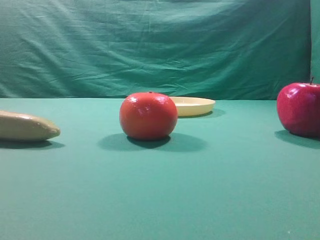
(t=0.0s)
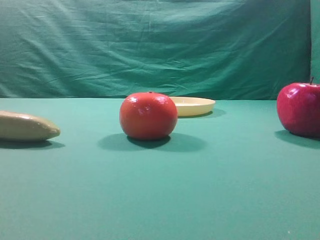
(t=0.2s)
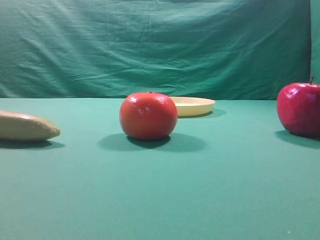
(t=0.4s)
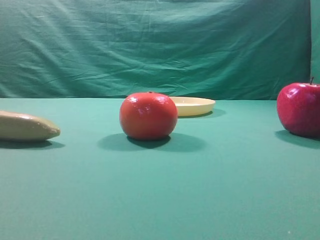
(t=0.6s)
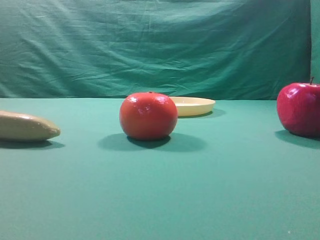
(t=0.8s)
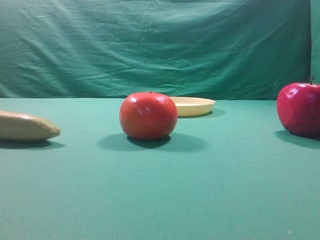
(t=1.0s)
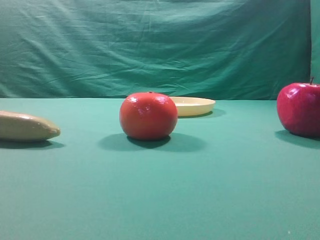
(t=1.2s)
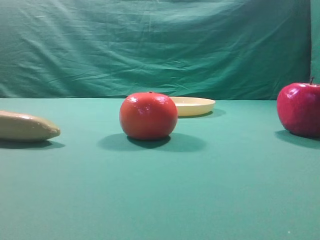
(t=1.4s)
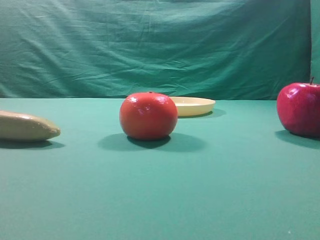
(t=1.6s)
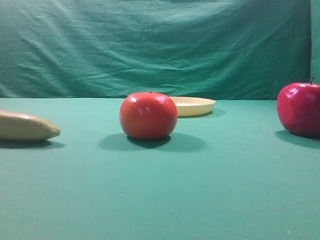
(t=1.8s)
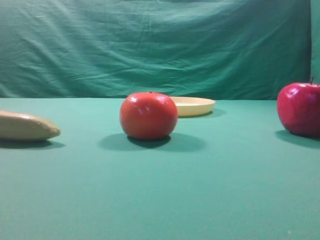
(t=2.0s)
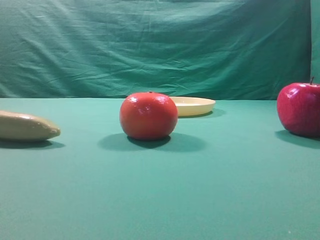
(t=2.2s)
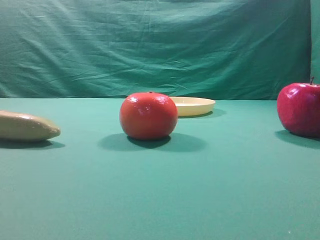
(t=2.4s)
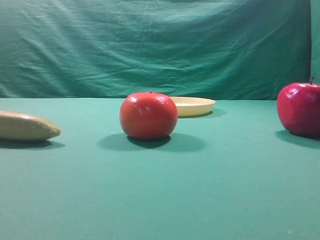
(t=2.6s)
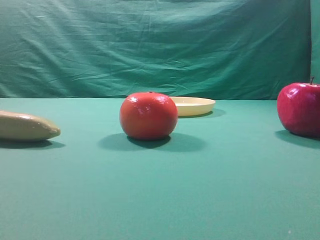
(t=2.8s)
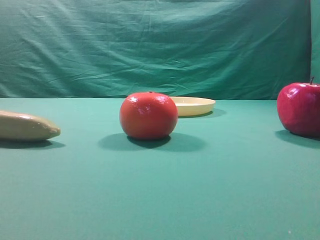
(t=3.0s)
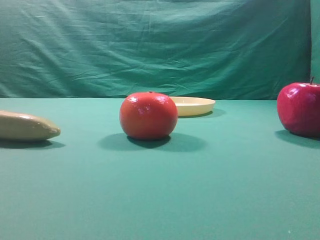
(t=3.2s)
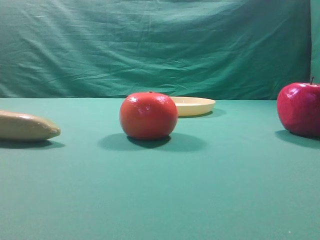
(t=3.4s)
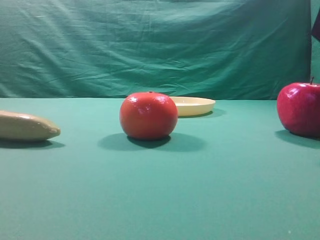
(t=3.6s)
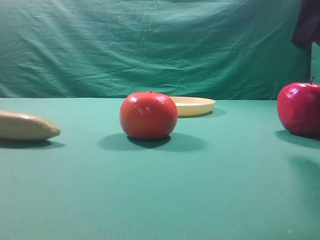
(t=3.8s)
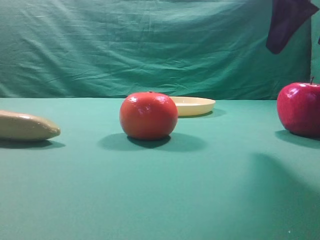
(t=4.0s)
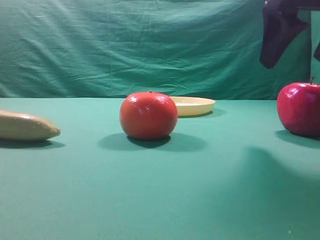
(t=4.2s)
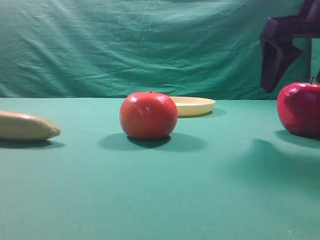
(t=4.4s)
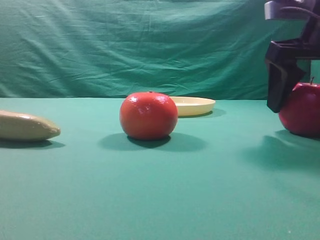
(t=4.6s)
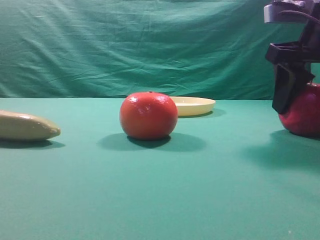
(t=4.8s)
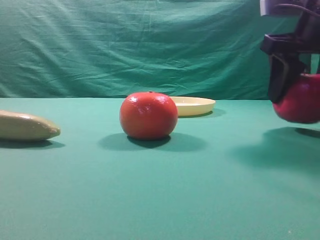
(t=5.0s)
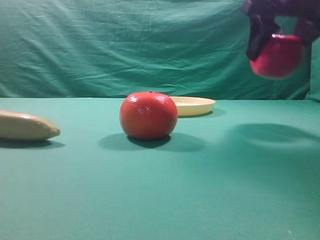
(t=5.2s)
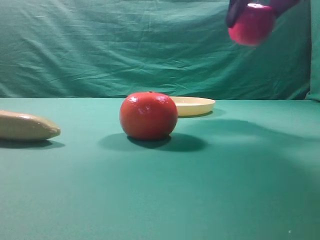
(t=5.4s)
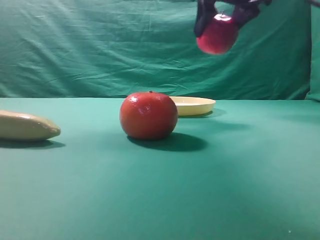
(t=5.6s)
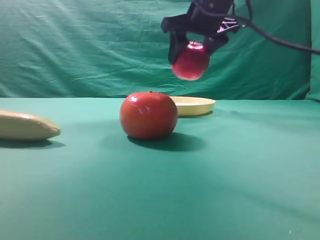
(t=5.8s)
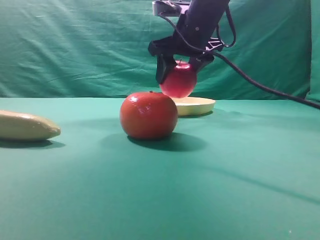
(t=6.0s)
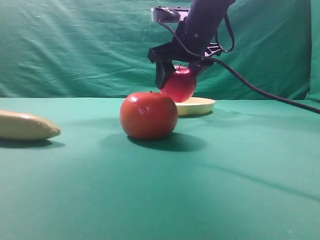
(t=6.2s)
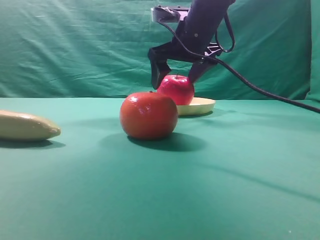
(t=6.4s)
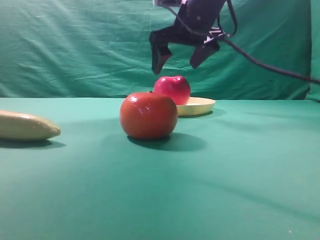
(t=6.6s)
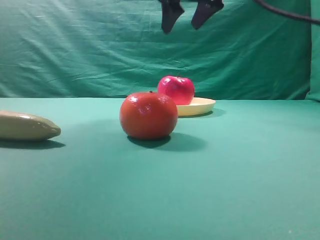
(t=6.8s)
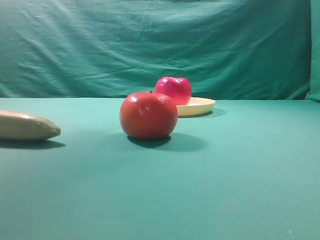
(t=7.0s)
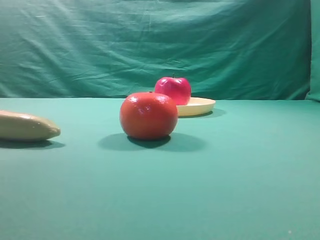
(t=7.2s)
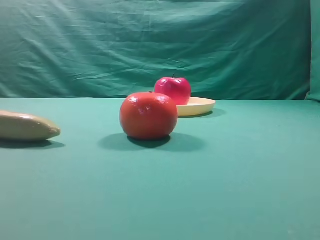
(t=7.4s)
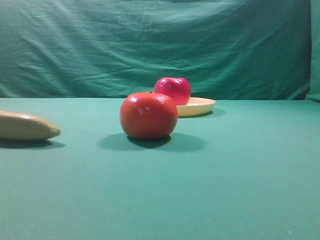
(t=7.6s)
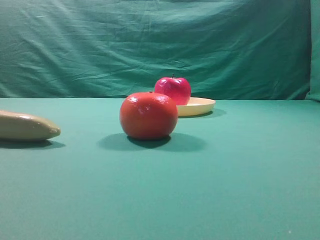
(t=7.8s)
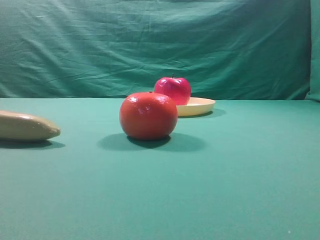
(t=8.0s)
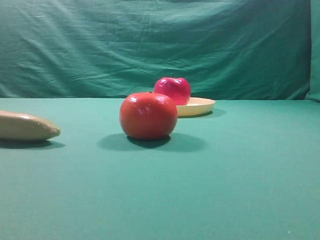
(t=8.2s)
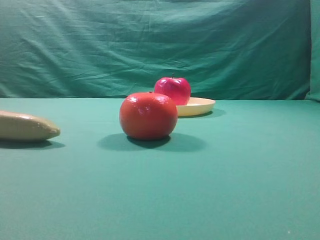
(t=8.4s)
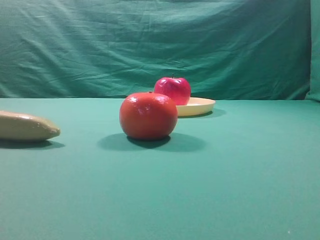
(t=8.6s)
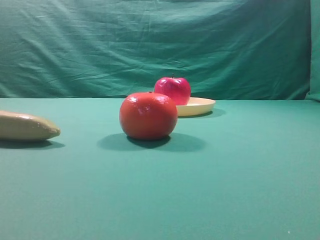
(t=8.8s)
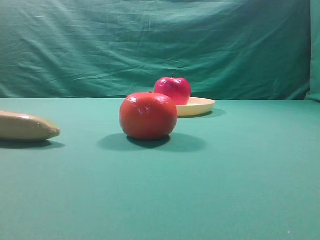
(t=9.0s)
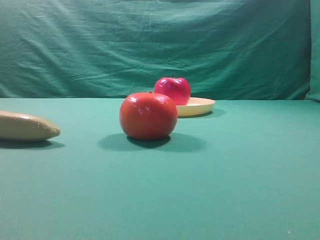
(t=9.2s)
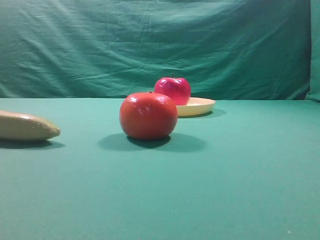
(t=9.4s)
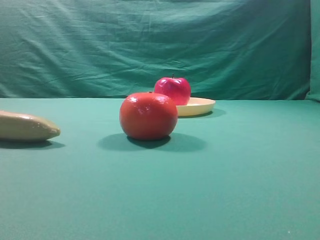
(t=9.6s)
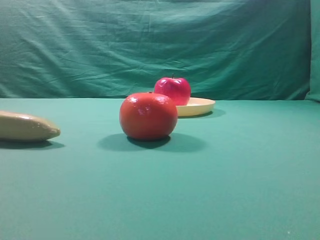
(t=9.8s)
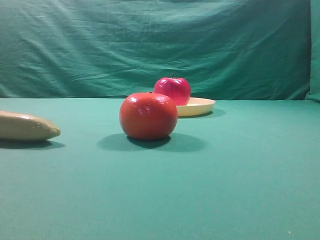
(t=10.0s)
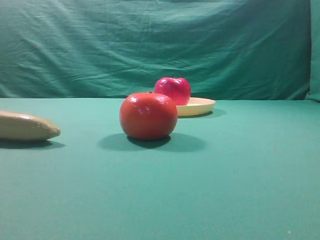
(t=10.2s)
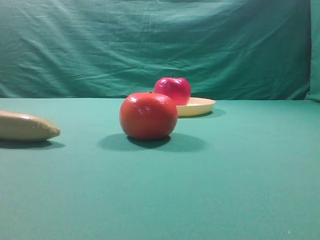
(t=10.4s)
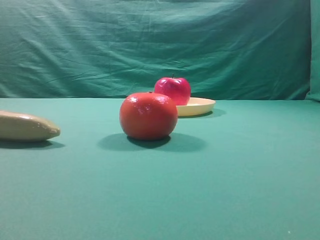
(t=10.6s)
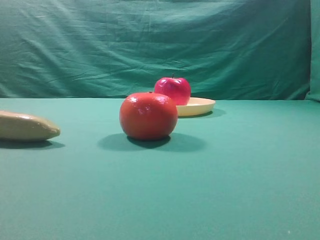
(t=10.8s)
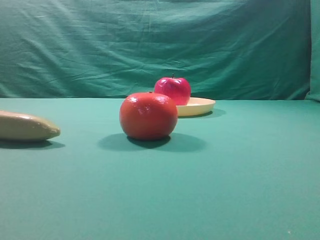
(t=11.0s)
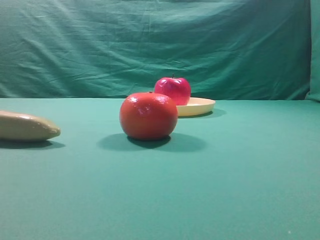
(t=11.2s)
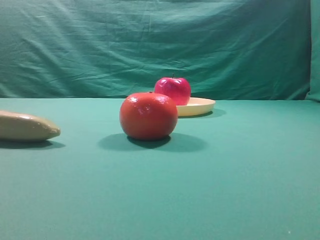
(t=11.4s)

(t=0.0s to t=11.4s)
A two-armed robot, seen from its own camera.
Task of the whole recording: grasp the apple and place it into the yellow plate.
Step, t=0.0s - t=5.0s: Grasp the fruit that can keep the doctor away.
Step, t=5.2s - t=6.6s: Place the picked object into the yellow plate.

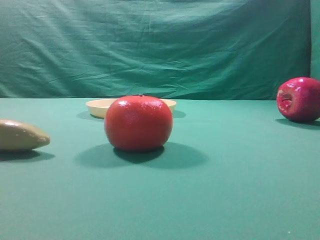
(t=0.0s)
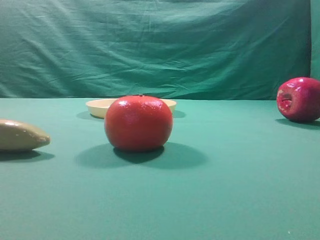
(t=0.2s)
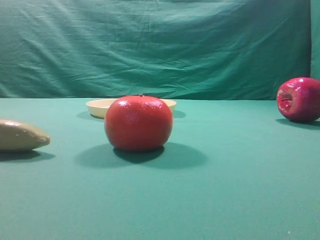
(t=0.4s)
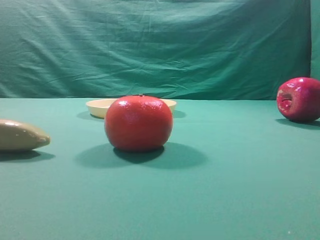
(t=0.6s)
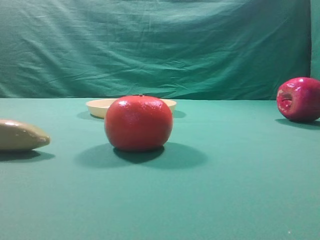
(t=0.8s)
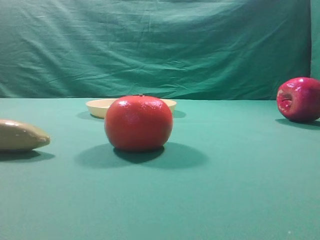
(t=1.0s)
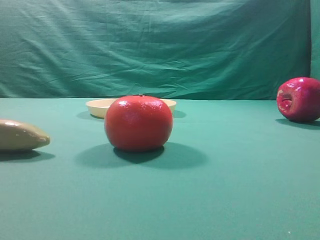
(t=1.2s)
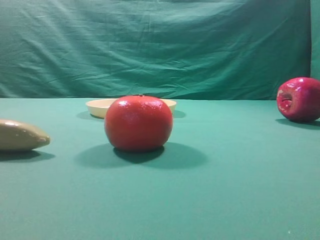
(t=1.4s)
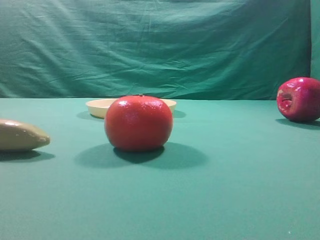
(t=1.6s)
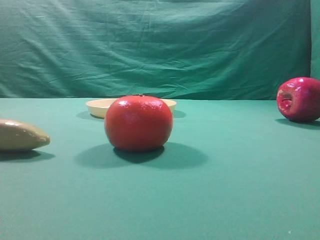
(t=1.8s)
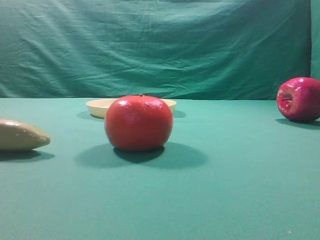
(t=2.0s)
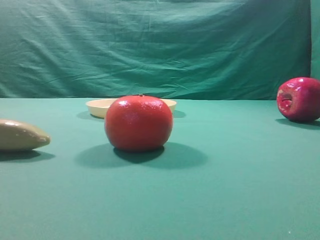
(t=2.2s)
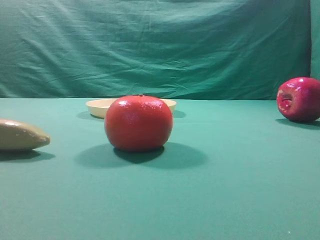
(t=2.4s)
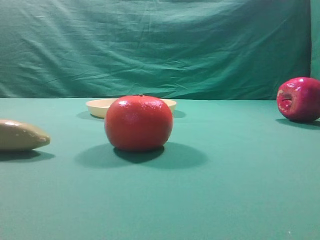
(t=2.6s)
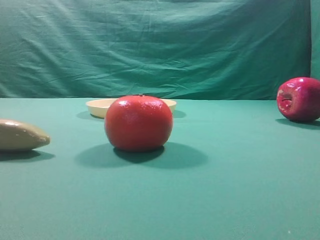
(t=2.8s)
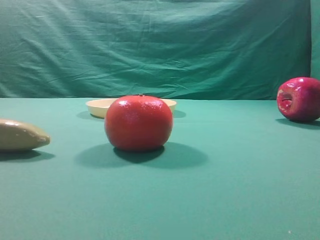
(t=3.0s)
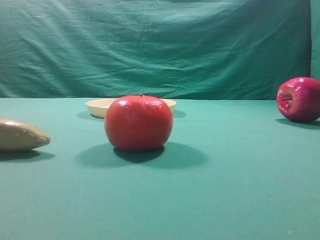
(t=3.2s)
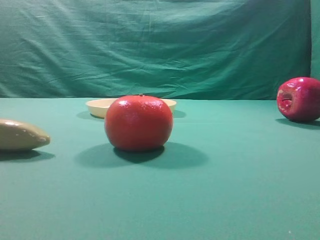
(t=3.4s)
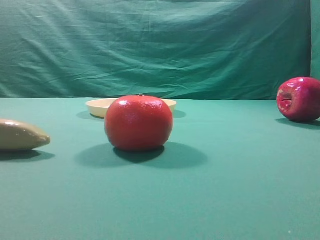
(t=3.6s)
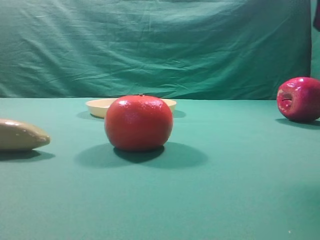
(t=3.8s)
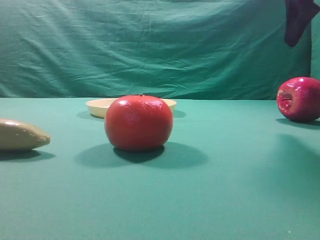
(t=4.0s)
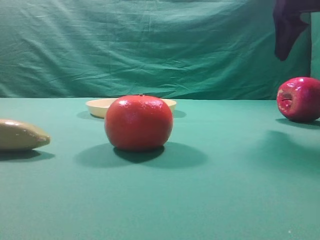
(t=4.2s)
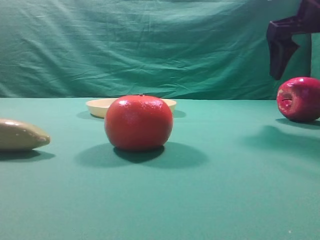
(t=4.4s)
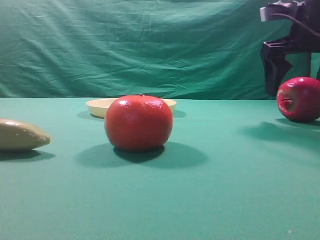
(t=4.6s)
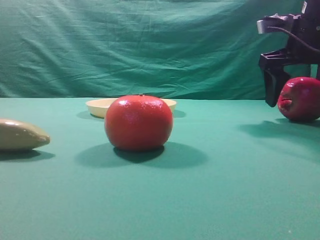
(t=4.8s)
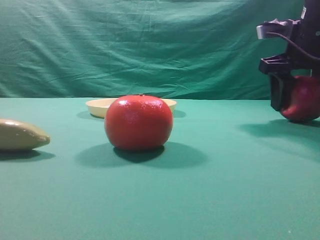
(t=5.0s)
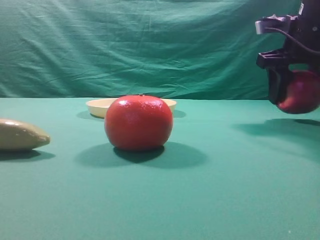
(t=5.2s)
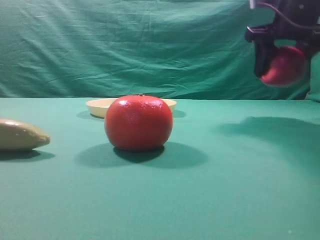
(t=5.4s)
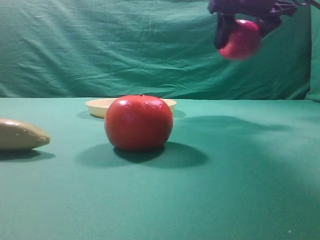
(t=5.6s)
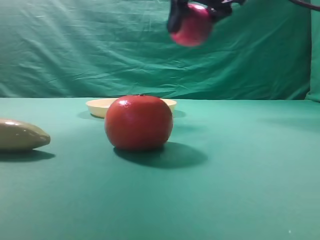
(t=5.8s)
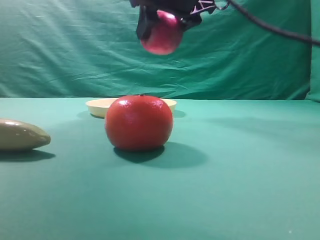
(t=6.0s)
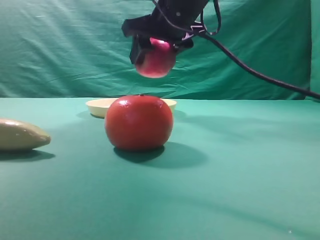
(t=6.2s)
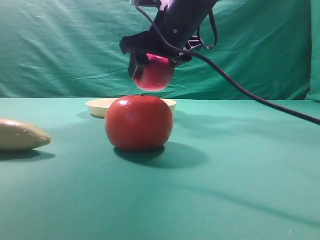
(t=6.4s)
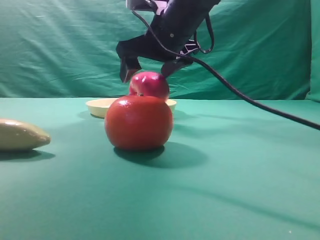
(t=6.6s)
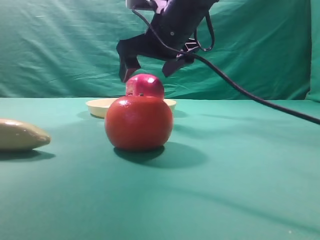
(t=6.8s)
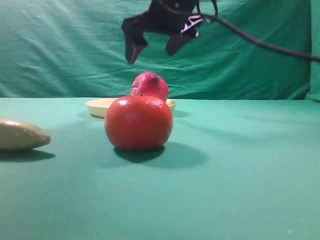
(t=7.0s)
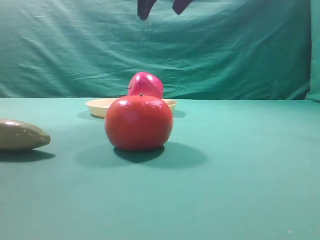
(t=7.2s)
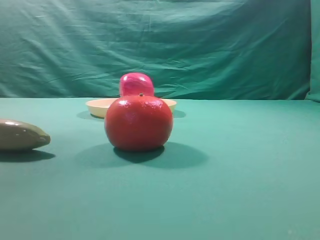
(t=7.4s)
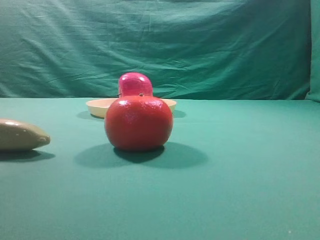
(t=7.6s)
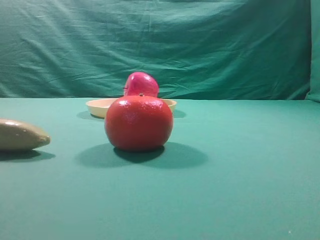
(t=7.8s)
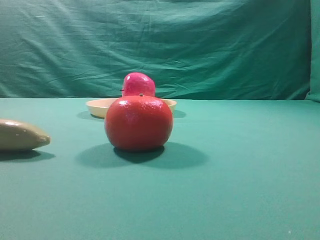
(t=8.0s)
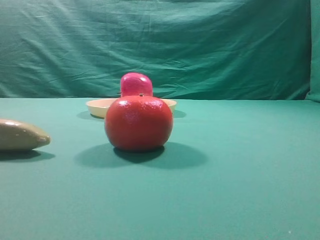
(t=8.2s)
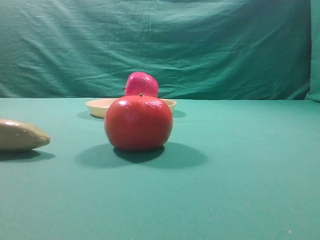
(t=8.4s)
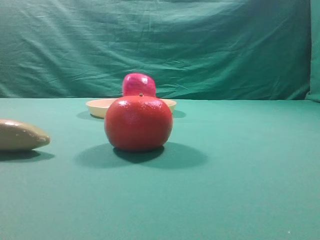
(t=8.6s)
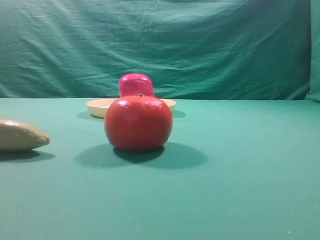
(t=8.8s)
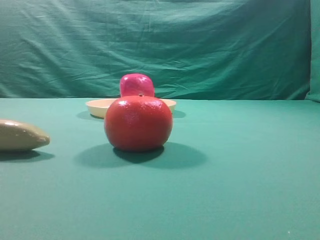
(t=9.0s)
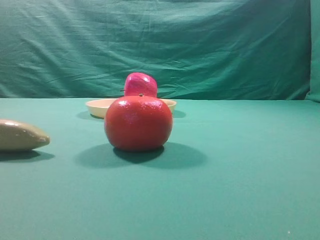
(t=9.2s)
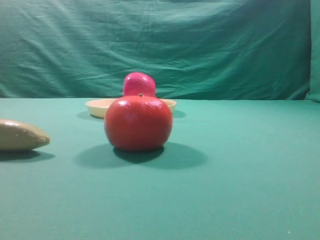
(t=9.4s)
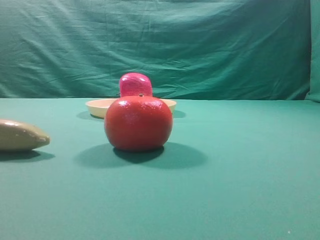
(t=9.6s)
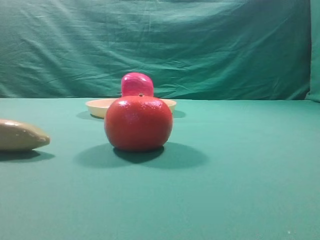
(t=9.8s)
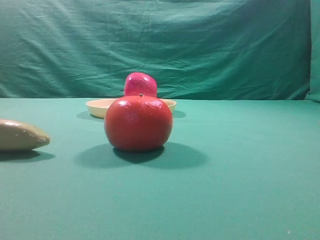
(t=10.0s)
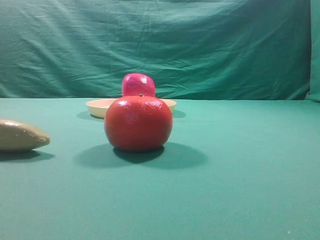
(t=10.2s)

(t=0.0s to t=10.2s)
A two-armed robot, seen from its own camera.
Task of the whole recording: grasp the apple and place it into the yellow plate.
Step, t=0.0s - t=5.2s: Grasp the fruit that can keep the doctor away.
Step, t=5.4s - t=5.8s: Place the picked object into the yellow plate.
